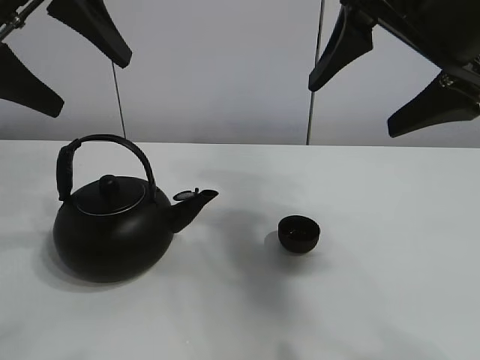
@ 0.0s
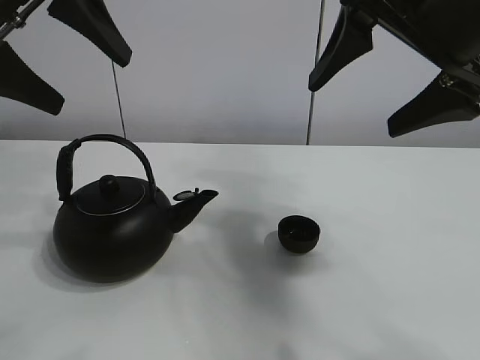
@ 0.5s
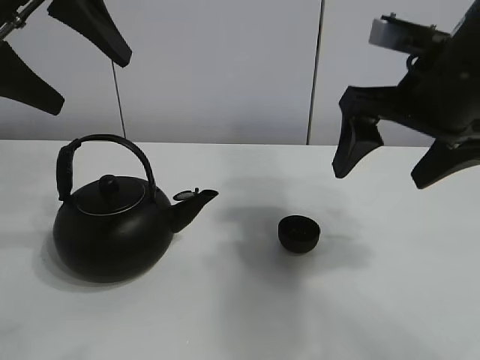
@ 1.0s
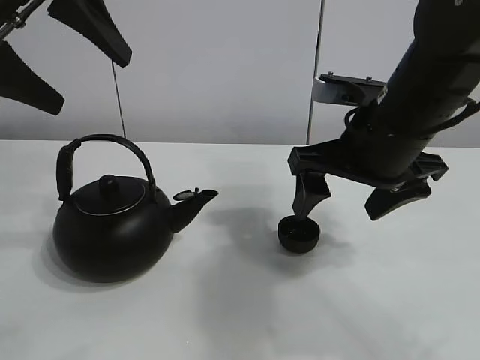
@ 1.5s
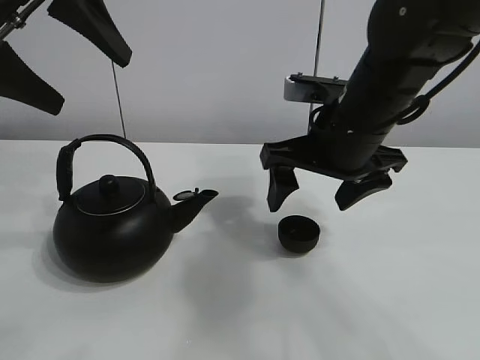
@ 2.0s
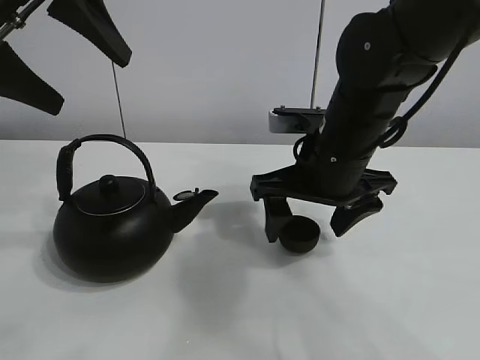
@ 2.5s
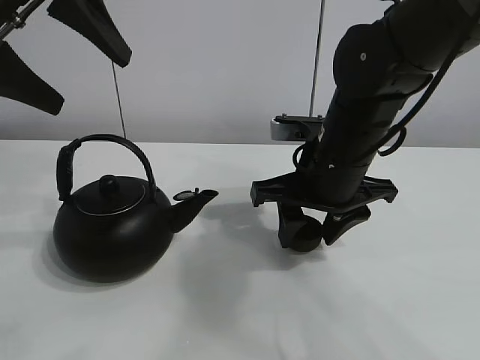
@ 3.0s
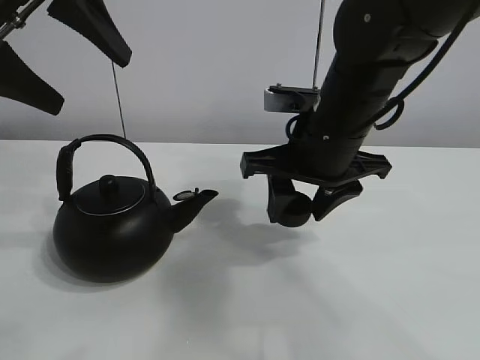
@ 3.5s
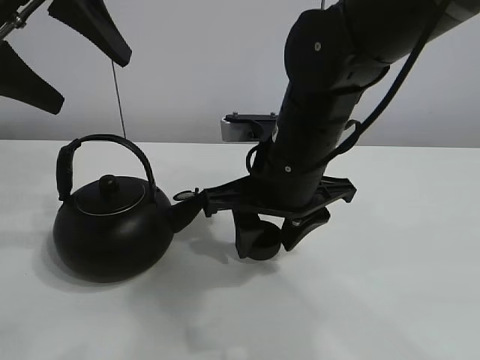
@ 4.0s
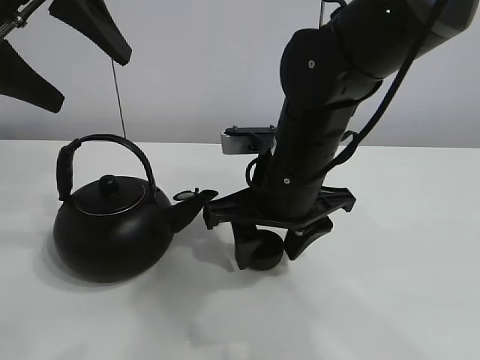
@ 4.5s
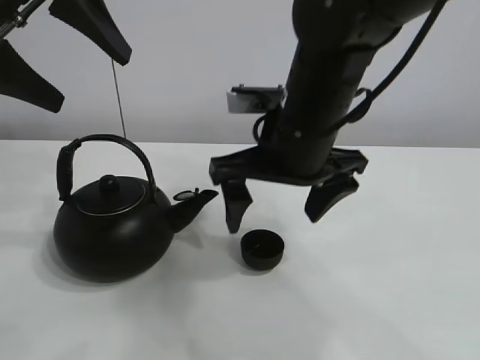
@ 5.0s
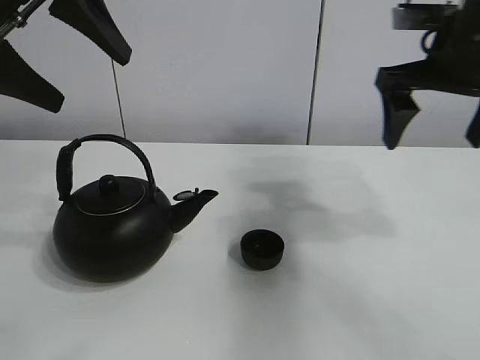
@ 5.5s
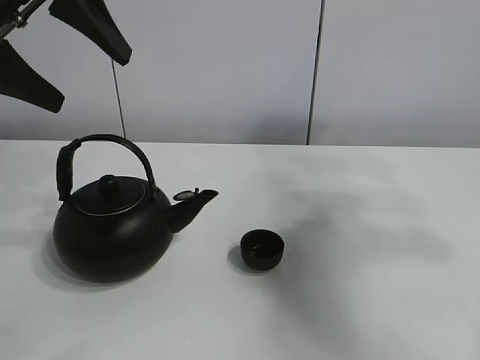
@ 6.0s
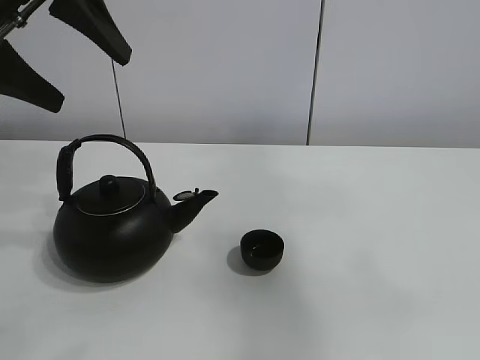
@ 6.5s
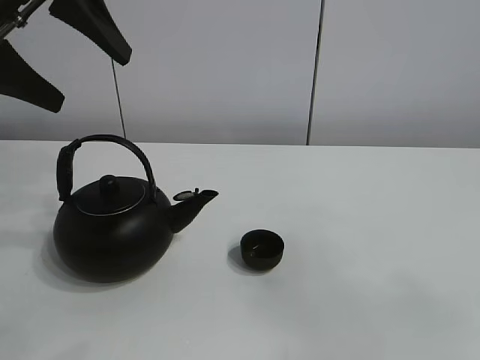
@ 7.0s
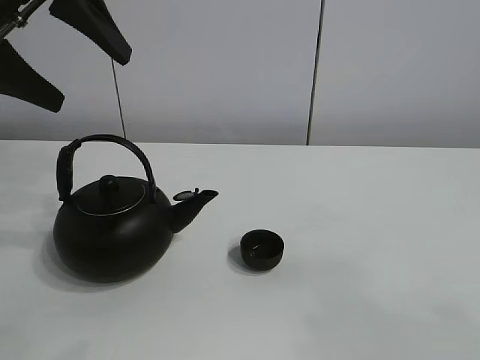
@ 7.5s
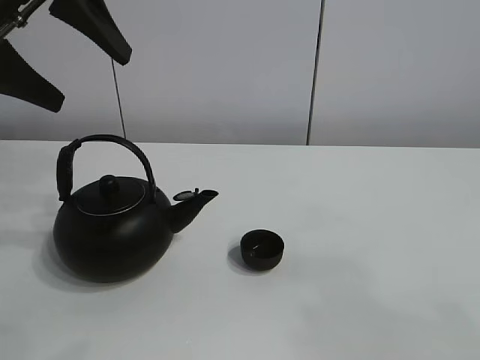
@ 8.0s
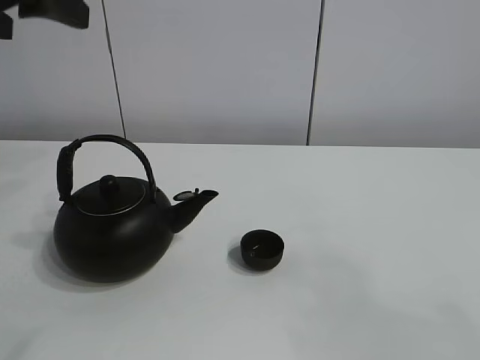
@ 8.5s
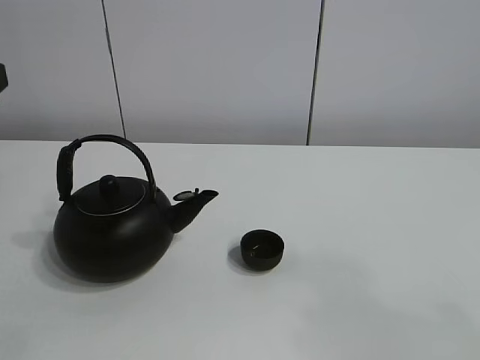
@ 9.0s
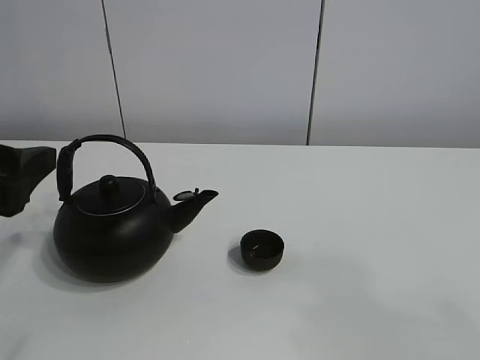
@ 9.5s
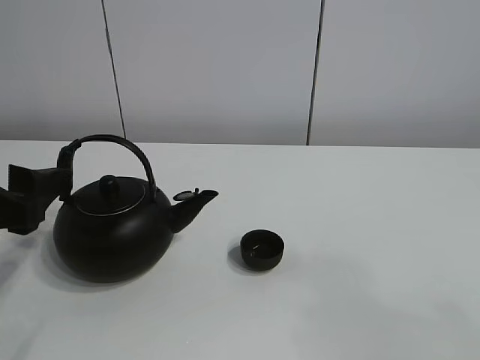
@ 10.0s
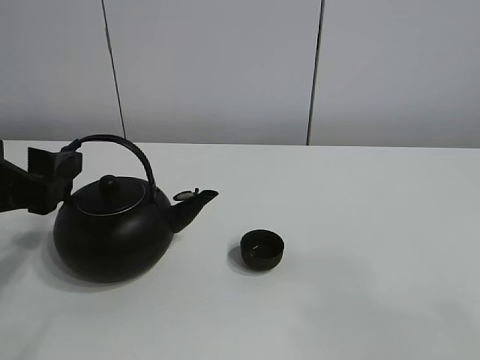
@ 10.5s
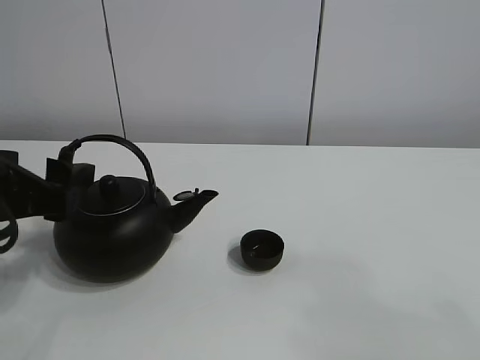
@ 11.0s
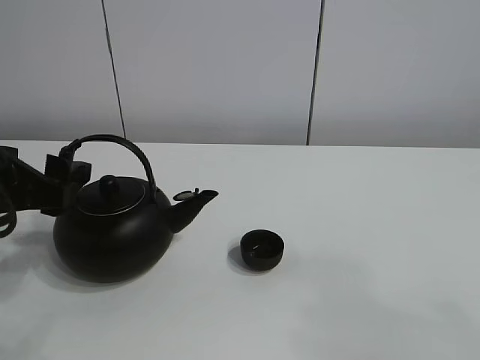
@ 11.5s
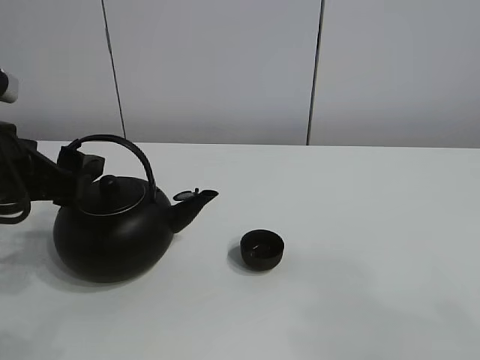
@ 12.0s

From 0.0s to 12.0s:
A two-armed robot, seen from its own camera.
Task of the whole recording: pour tea into the teacup.
Step, from 0.0s to 3.0s: Pick up the teacup with the right gripper.
Step, from 3.5s to 4.0s: Place the teacup in the center of view with the right gripper.
From 2.0s to 4.0s: The right gripper is displaced to the left by some 5 cm, and closes its fingers.
From 4.0s to 6.0s: The right gripper heads to the right and upward, covering approximately 30 cm, and opens up.
From 6.0s to 8.0s: The right gripper travels backward by some 30 cm.
From 8.0s to 10.0s: The left gripper goes roughly 20 cm downward and backward.
From 10.0s to 12.0s: The left gripper shifts roughly 5 cm forward.

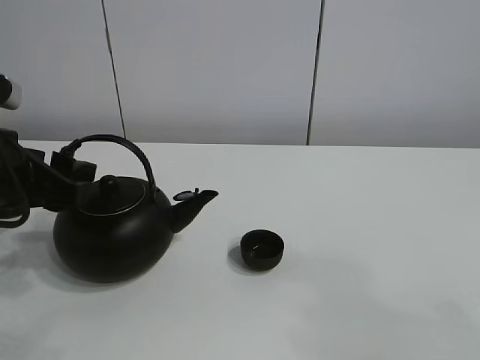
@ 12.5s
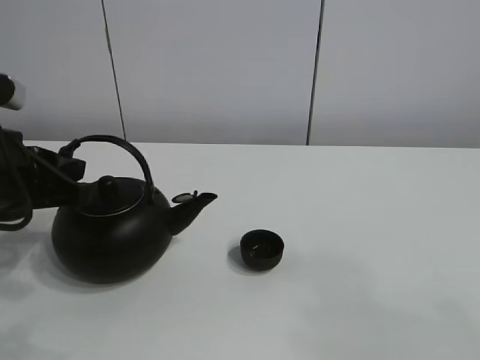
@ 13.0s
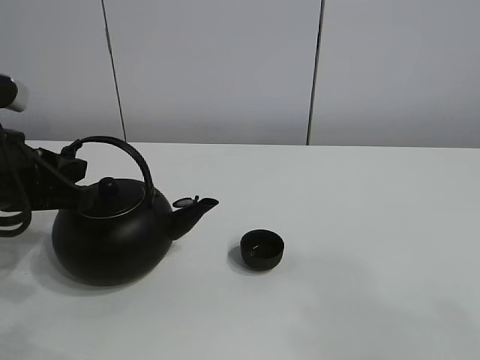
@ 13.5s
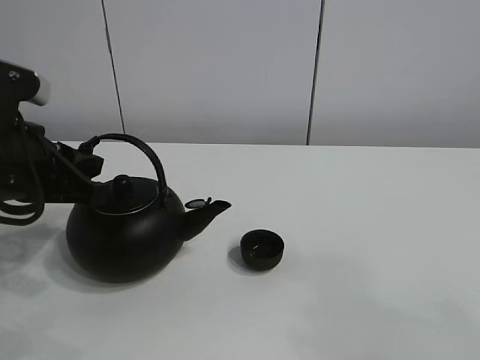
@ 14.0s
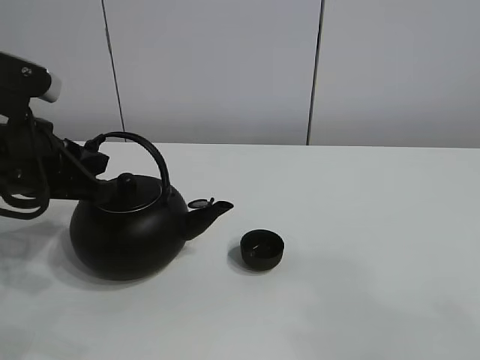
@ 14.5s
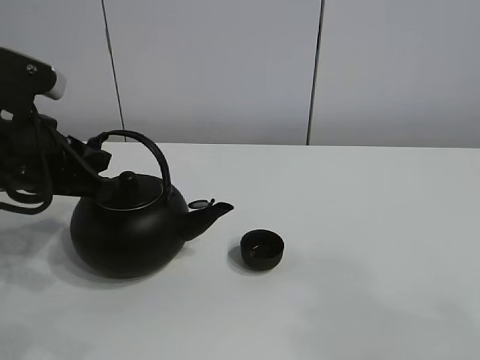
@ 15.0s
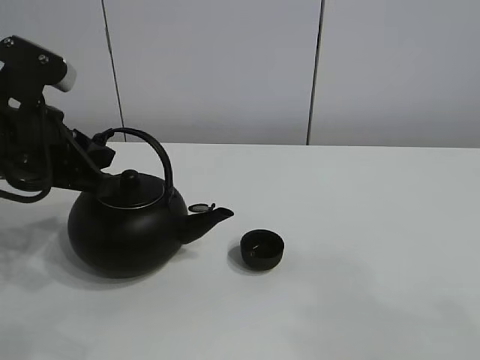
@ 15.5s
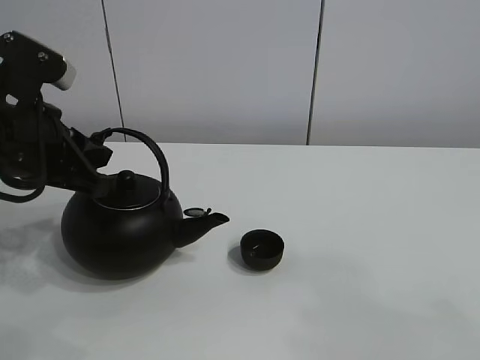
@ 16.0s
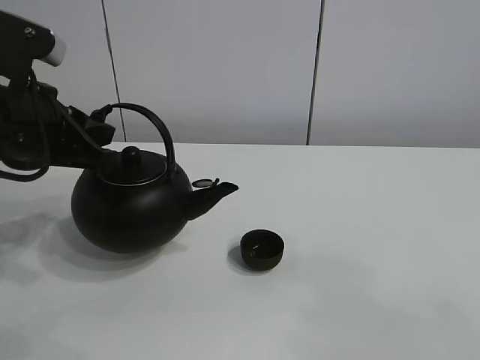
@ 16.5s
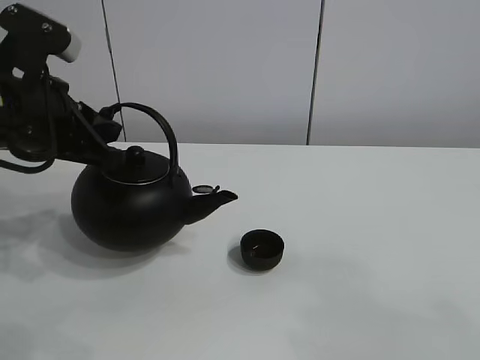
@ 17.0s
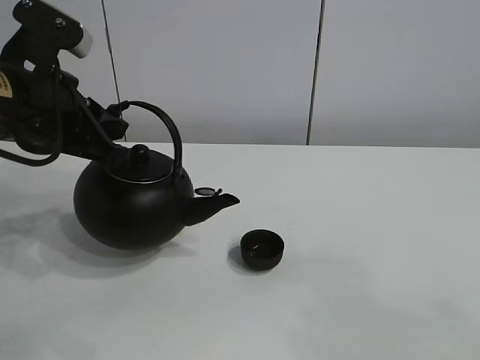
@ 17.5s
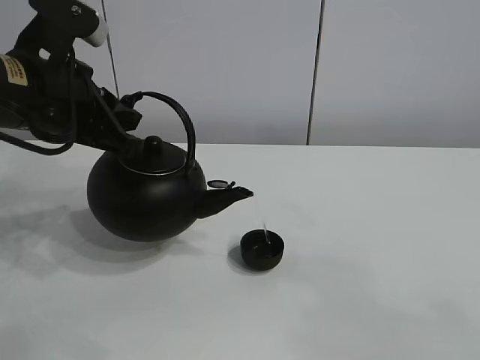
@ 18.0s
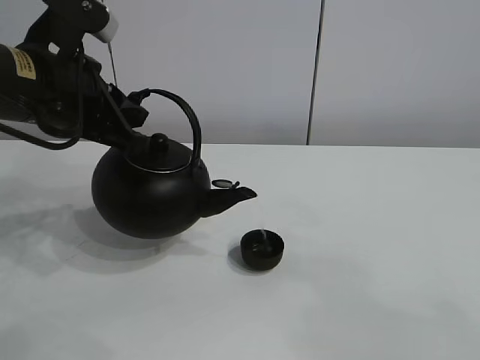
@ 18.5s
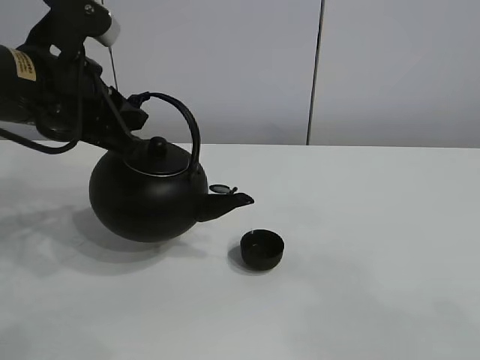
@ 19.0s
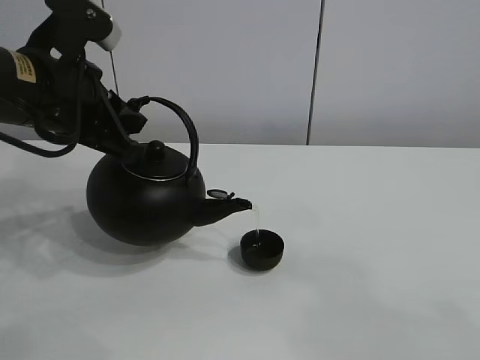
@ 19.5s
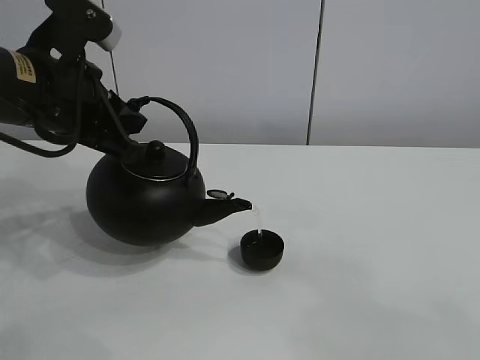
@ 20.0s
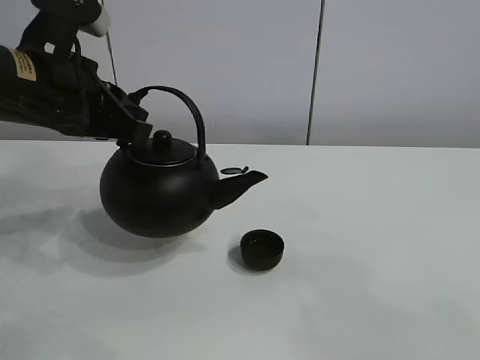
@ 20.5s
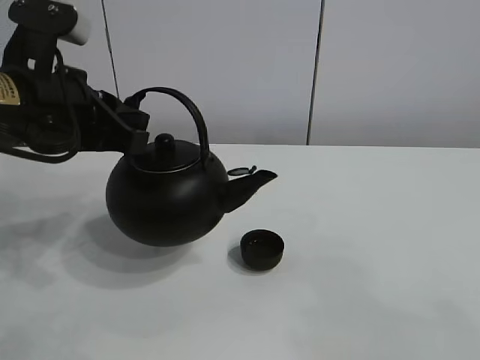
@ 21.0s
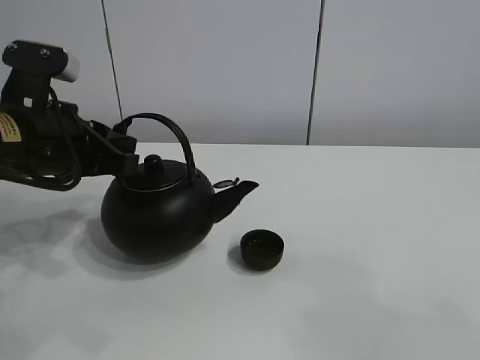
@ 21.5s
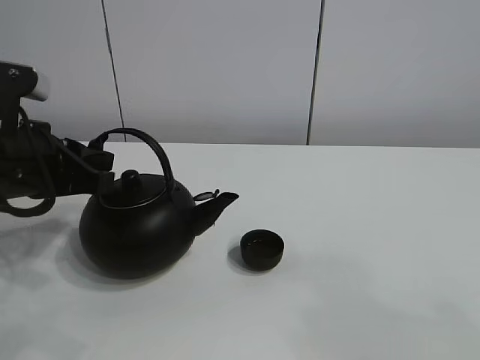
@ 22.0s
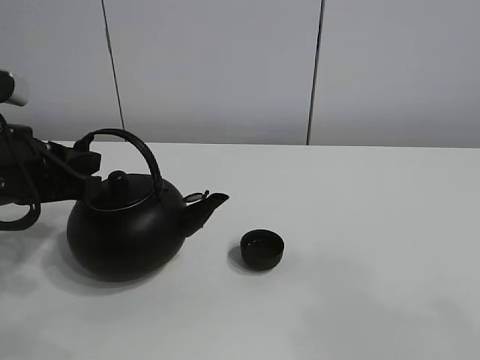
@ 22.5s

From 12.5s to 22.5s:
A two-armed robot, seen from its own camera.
Task of the whole recording: pour tea into the teacup.
Step, from 12.5s to 16.0s: Pick up the teapot with the left gripper.
Step, from 16.5s to 20.0s: Pour tea into the teacup with the left gripper.
From 12.5s to 14.5s: The left gripper closes its fingers.
From 14.5s to 16.5s: The grippers stay close to where they were, moving slightly.
From 16.5s to 20.5s: There are only small adjustments of the grippers.
From 20.5s to 22.5s: The left gripper heads downward, covering some 5 cm.

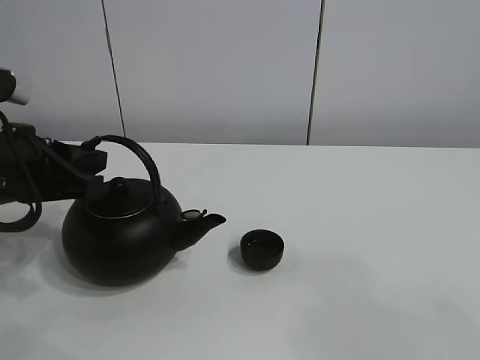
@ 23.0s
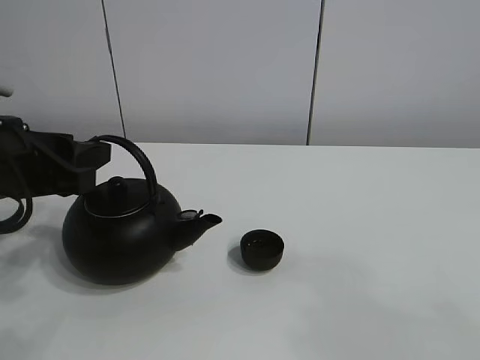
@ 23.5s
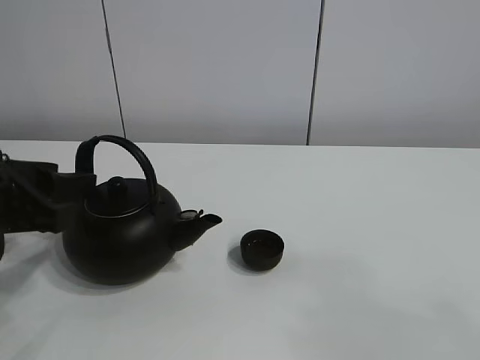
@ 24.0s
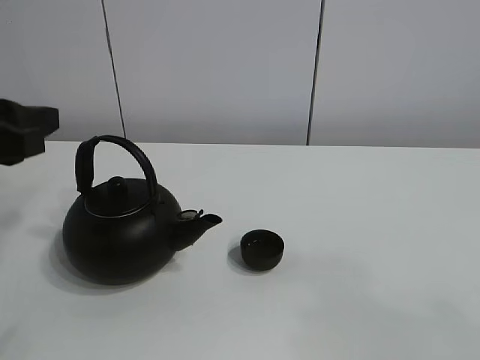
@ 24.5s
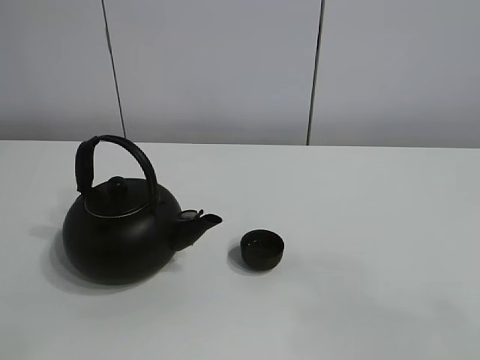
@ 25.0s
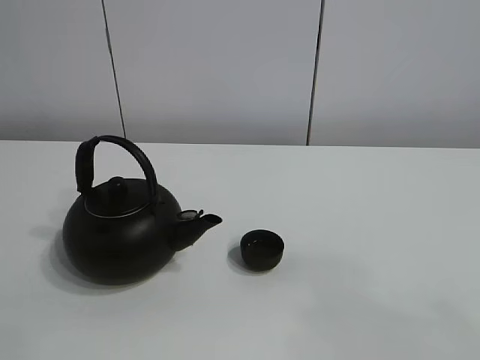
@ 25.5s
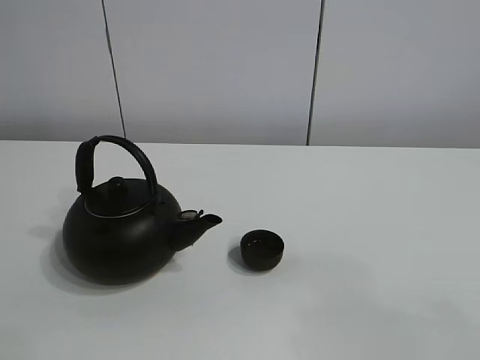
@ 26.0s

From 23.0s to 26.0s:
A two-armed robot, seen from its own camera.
Task of the whole recording: pour tea into the teacup.
From 23.0s to 24.5s: The left gripper shifts roughly 5 cm upward, and opens up.
From 24.5s to 26.0s: The left gripper shifts roughly 25 cm backward and upward.
